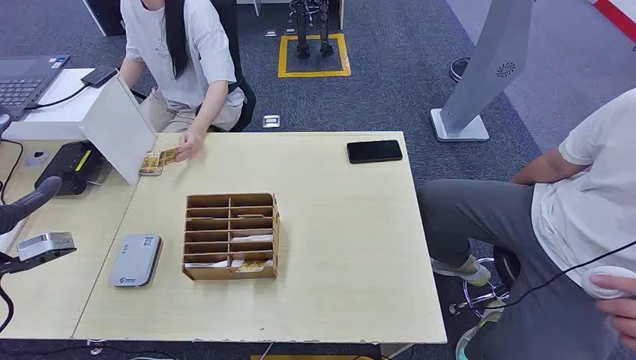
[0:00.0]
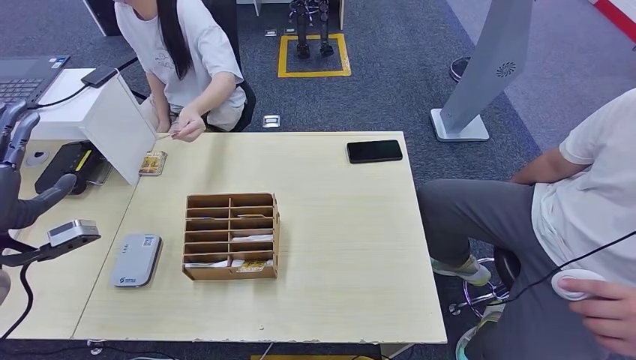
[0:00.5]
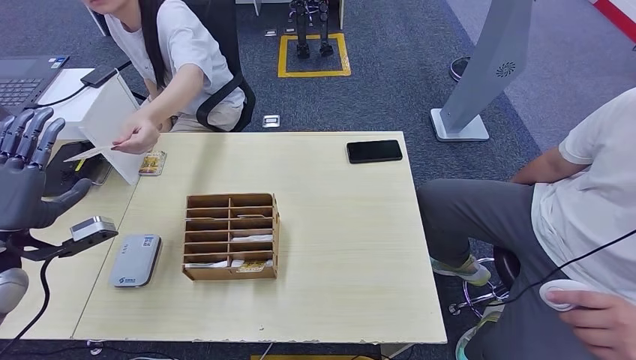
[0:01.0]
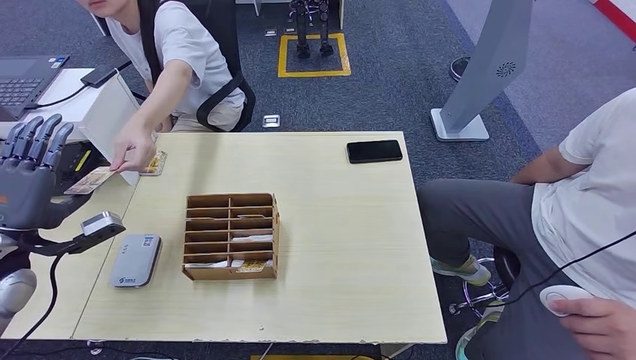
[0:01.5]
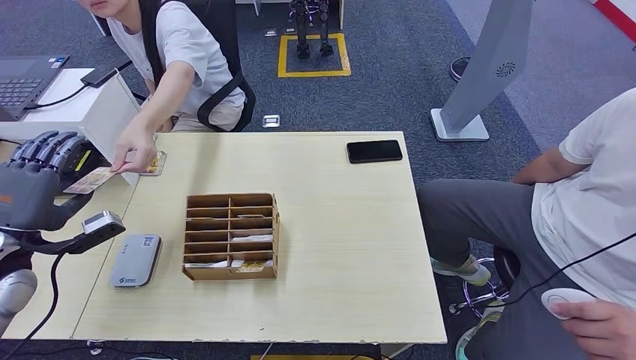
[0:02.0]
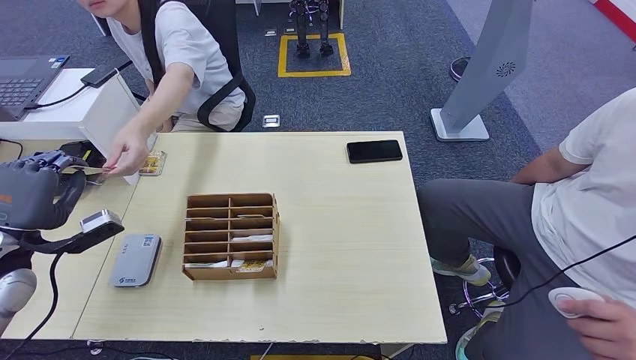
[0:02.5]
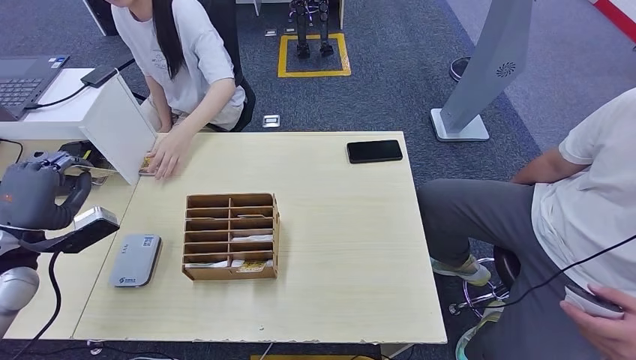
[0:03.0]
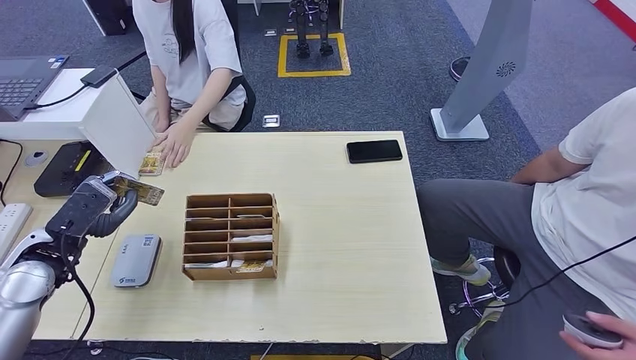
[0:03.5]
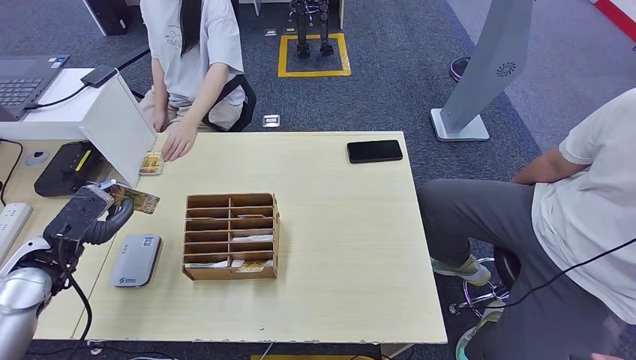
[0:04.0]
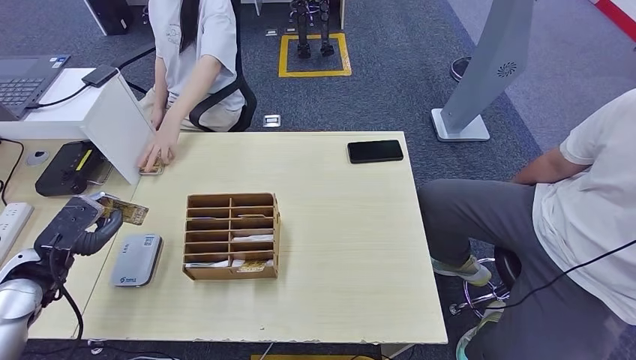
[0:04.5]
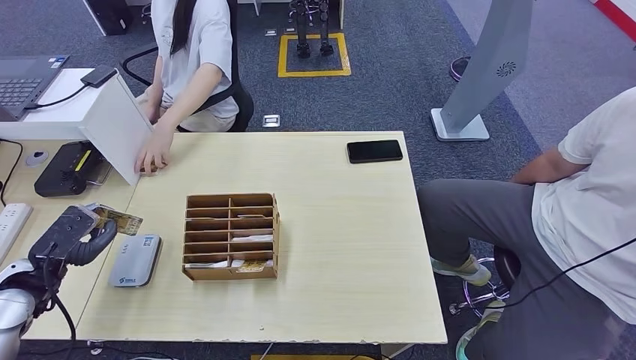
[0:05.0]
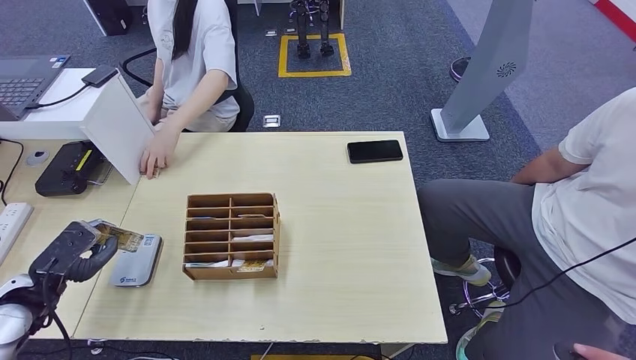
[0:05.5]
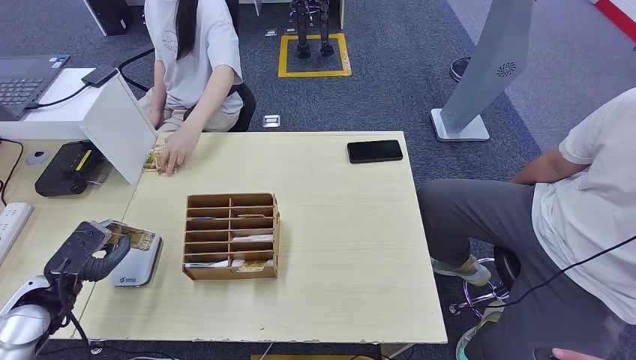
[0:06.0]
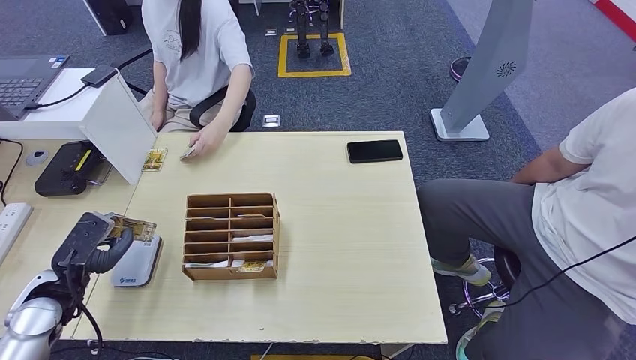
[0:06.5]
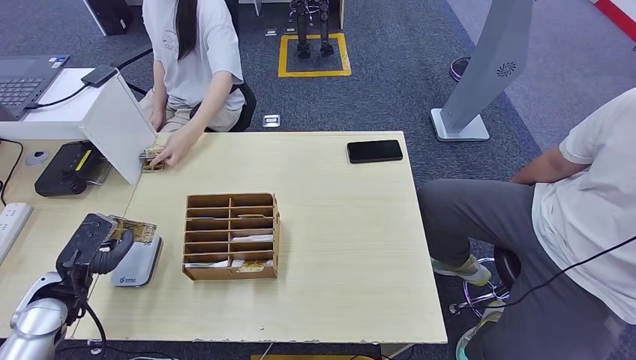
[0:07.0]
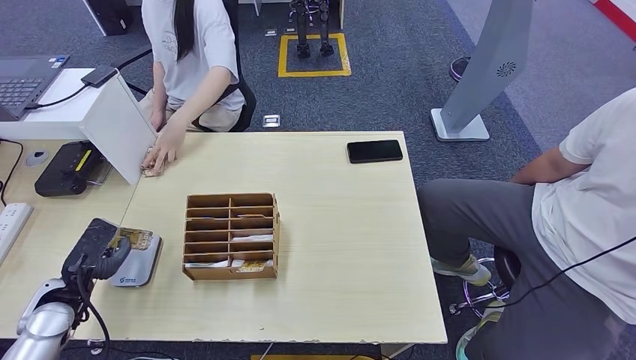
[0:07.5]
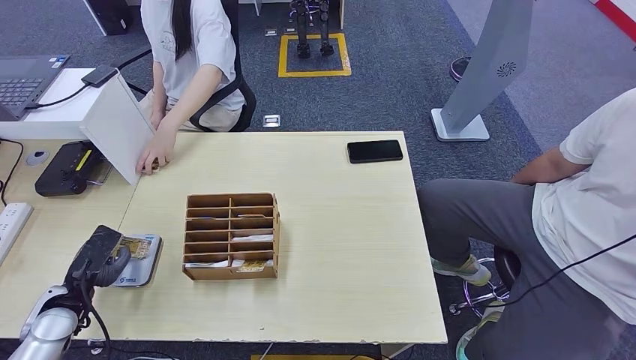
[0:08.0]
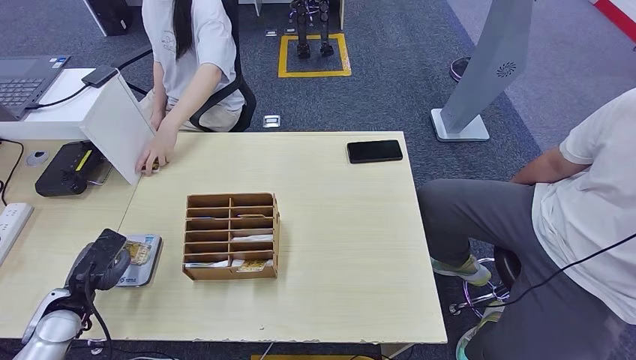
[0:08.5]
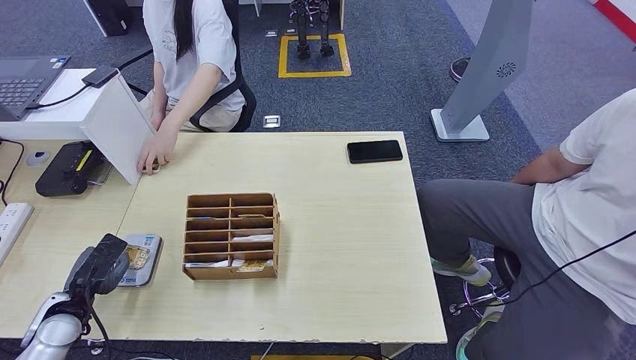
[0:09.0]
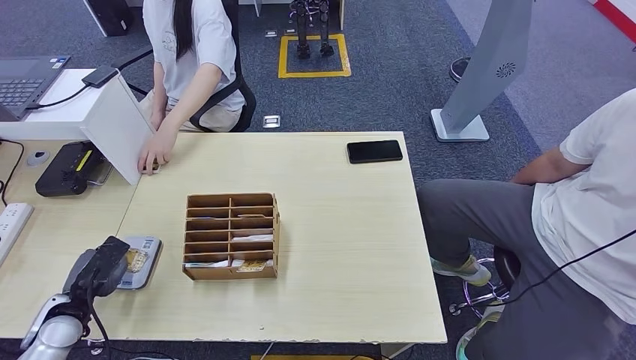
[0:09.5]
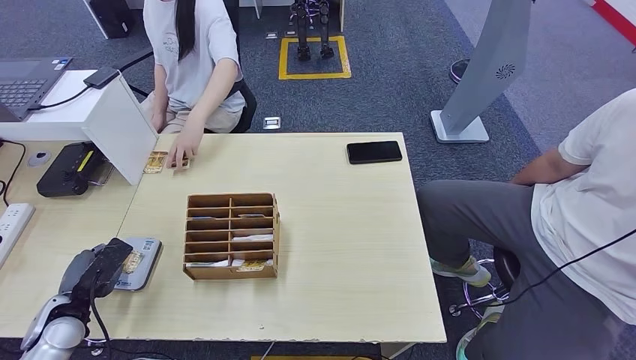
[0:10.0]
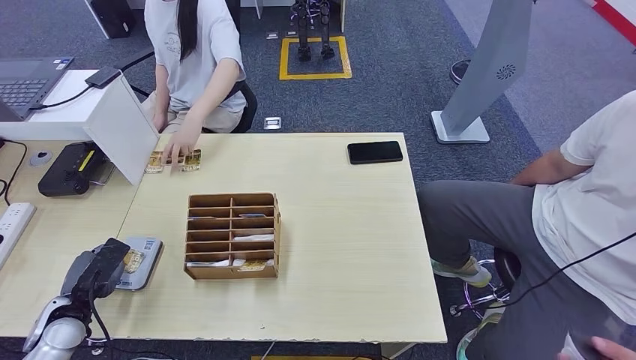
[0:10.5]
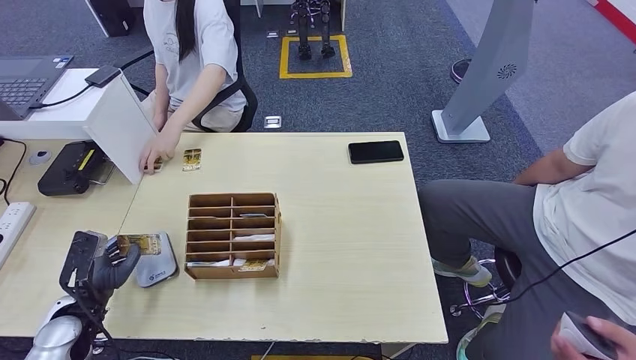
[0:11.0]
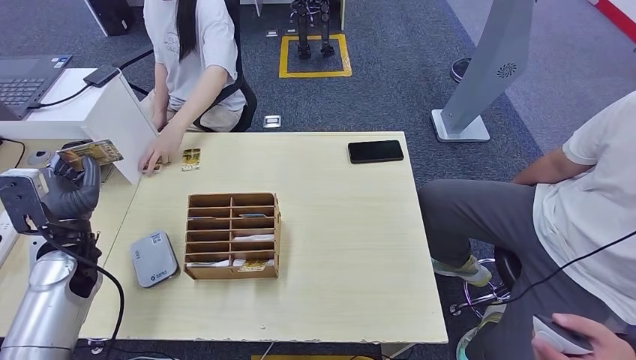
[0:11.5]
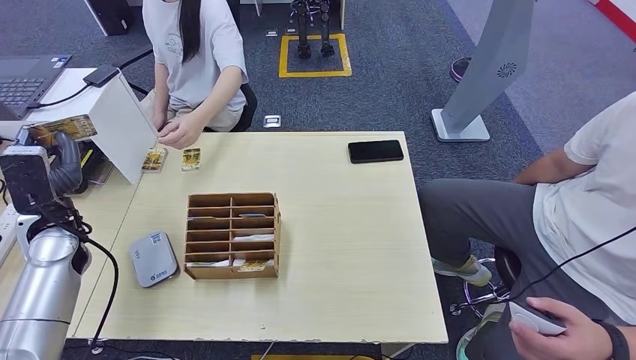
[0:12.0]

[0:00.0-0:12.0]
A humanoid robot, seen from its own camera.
Step, 0:00.0 to 0:03.0: Take the ID card from the person's hand.
Step, 0:03.5 to 0:08.5: Place the ID card on the card reader.
0:04.0 to 0:06.0: The left hand moves downward, approximately 5 cm.
0:06.0 to 0:08.0: The hands stay close to where they were, moving slightly.
0:08.0 to 0:10.0: The hands move only a little.
0:10.0 to 0:12.0: The left hand goes roughly 20 cm upward and forward.

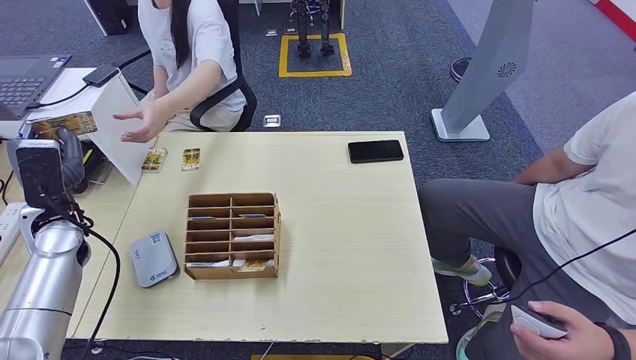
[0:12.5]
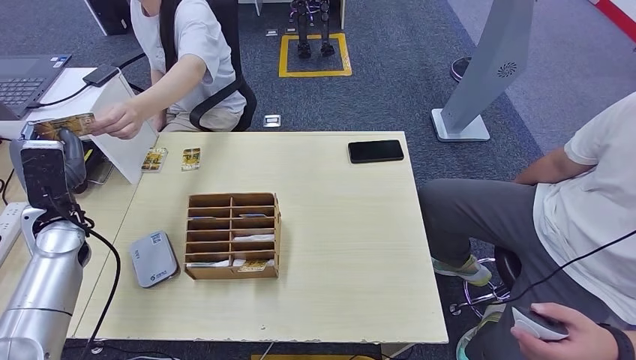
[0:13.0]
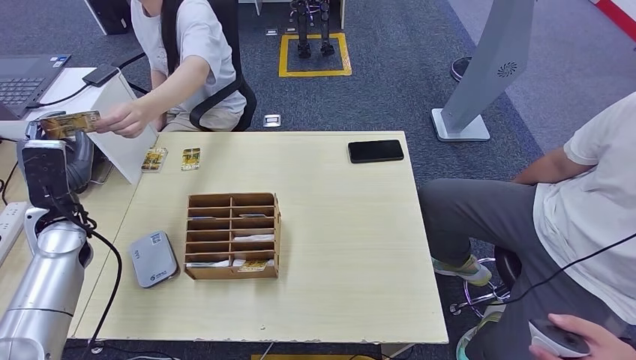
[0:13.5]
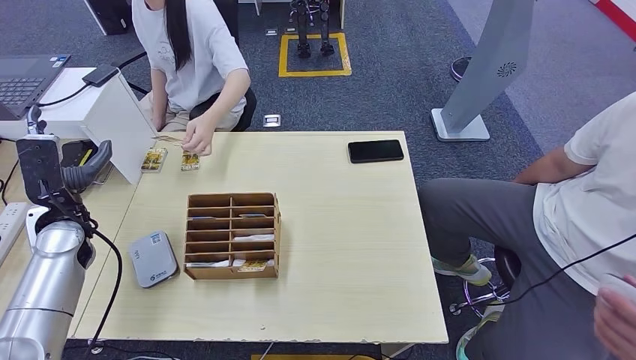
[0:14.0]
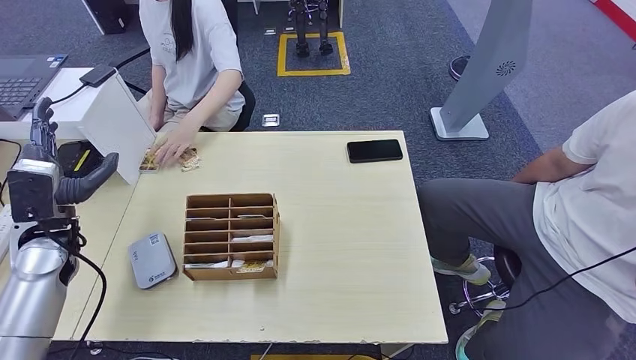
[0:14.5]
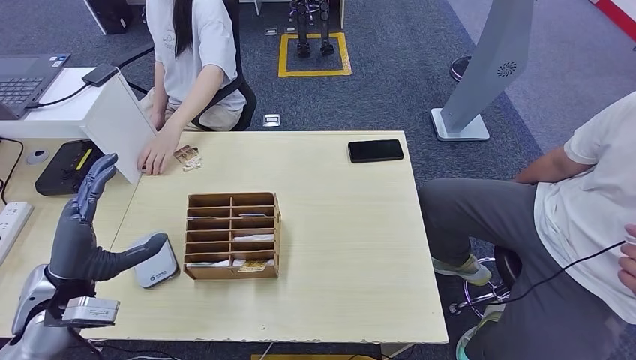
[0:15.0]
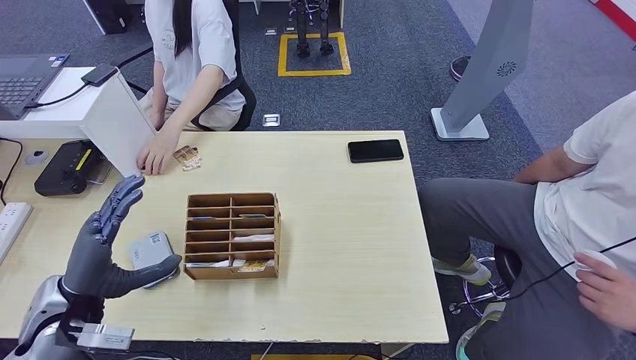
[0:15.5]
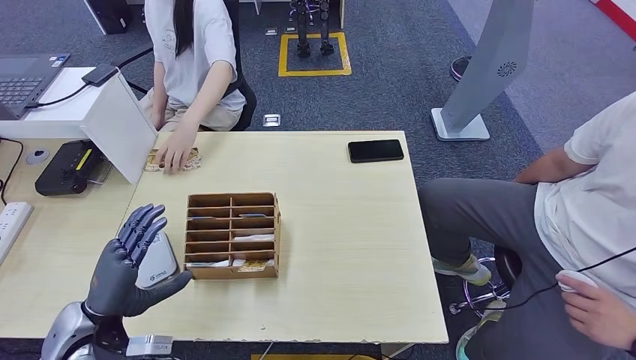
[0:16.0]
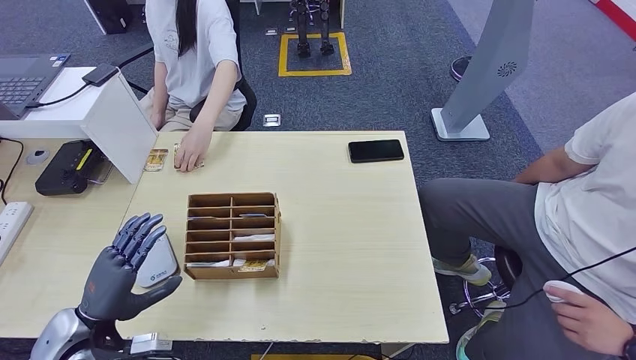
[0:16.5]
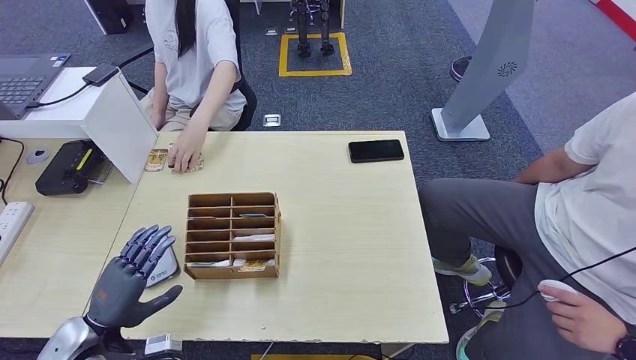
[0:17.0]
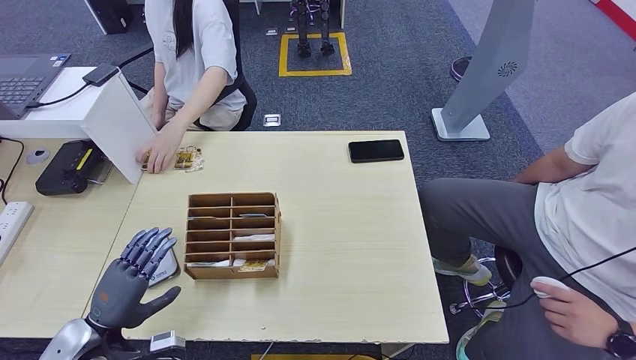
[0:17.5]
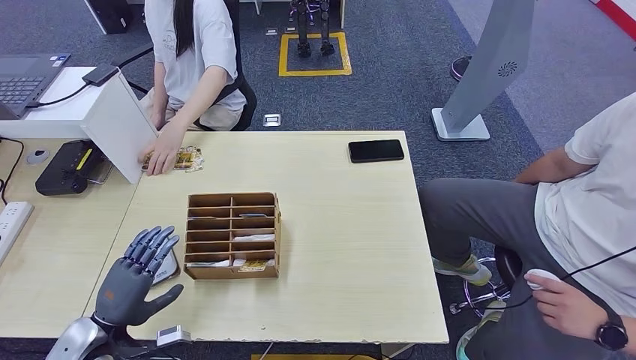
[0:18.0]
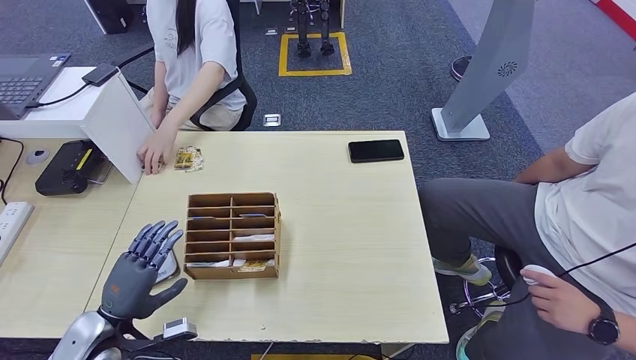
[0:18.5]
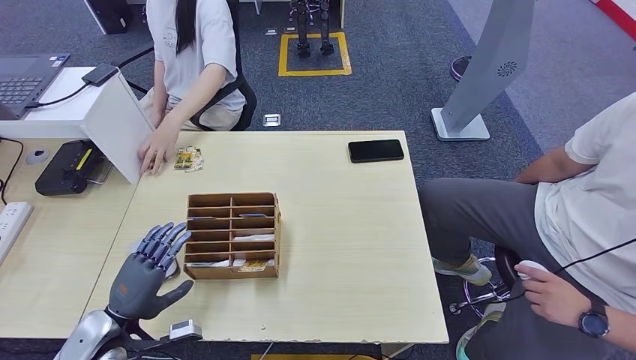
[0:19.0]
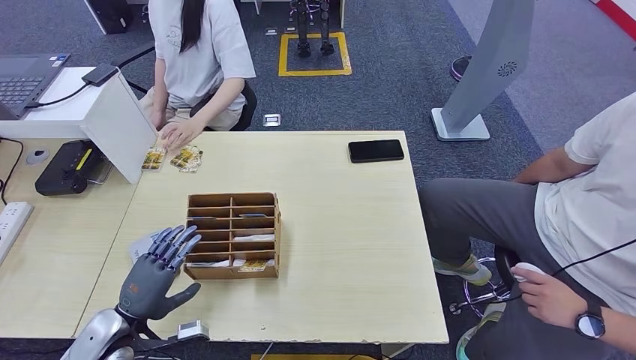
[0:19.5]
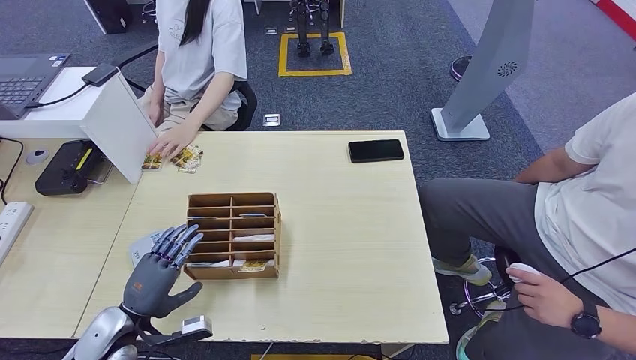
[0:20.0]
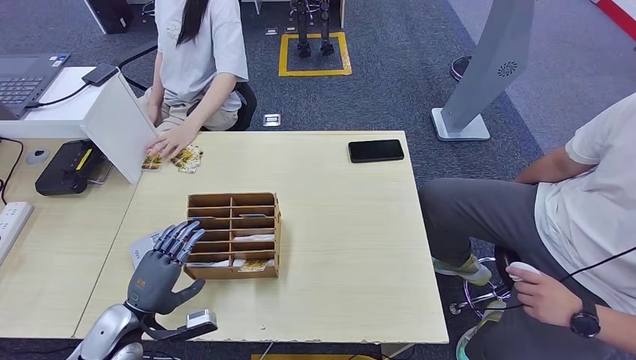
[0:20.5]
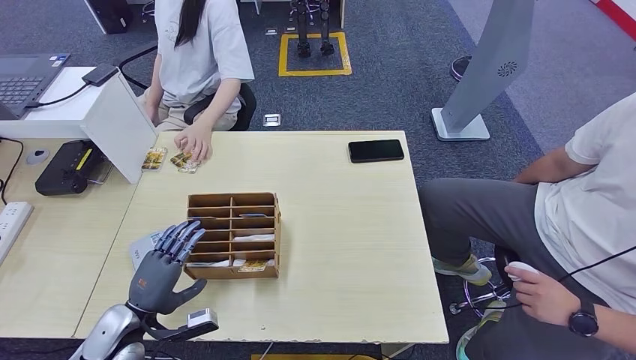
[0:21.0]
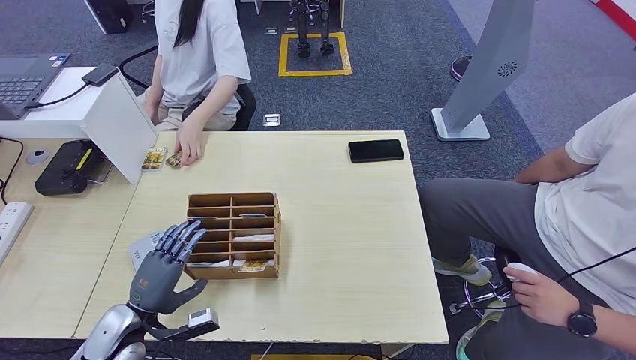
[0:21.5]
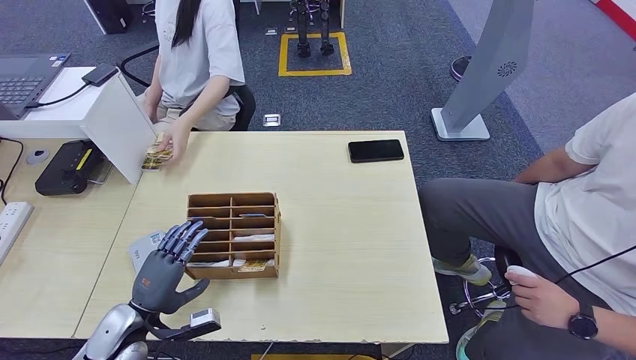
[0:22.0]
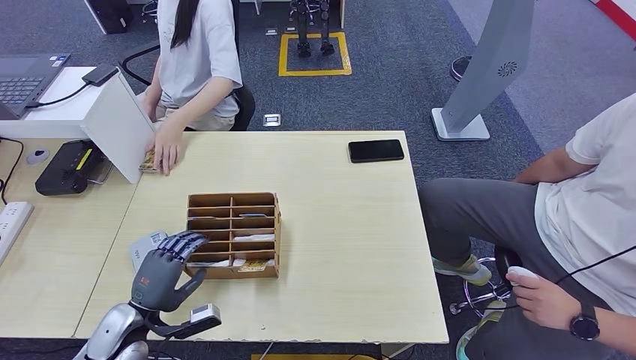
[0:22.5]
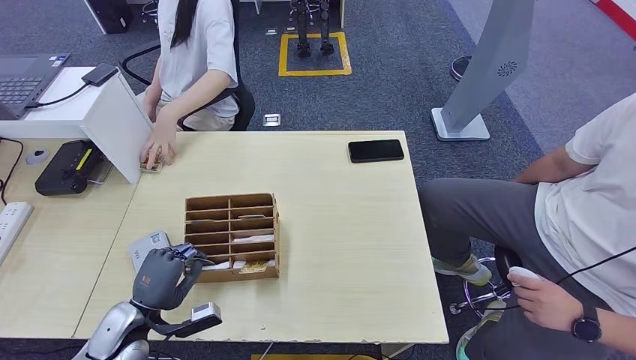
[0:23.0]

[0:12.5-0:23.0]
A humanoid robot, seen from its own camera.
0:12.5 to 0:14.5: The hands move only a little.
0:14.5 to 0:16.5: The left hand shifts approximately 15 cm backward and downward.
0:16.5 to 0:19.0: The hands make only small movements.
0:19.0 to 0:23.0: The hands stay close to where they were, moving slightly.
